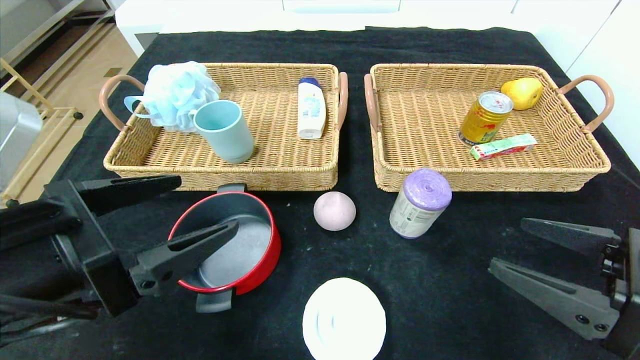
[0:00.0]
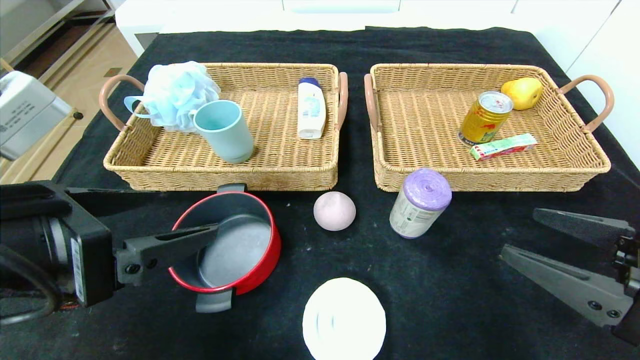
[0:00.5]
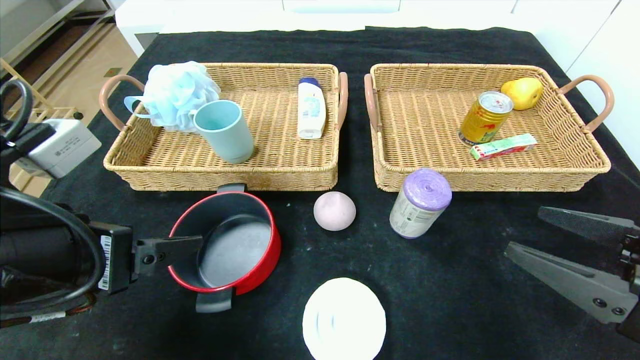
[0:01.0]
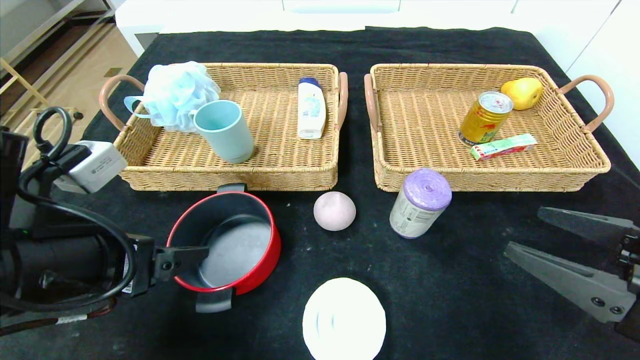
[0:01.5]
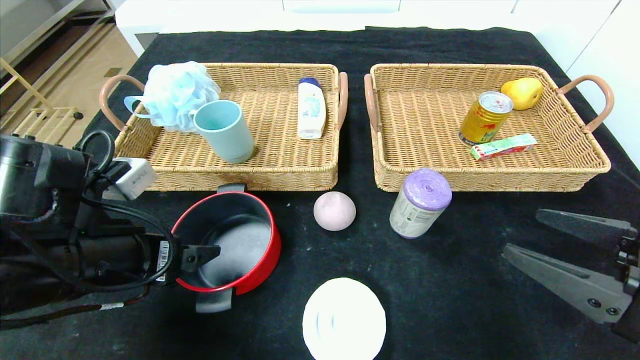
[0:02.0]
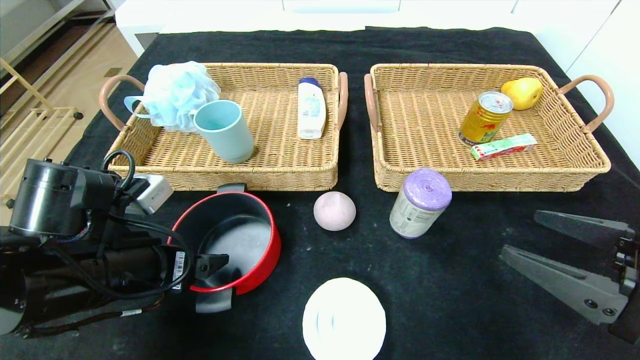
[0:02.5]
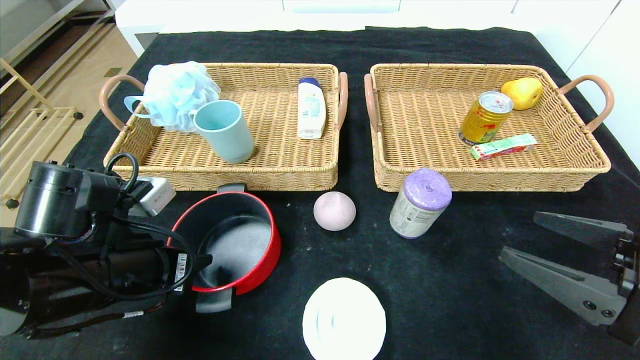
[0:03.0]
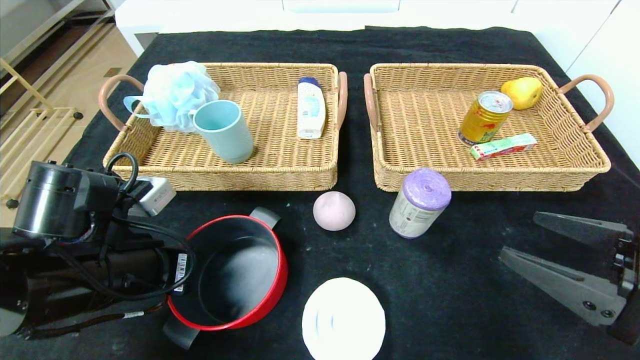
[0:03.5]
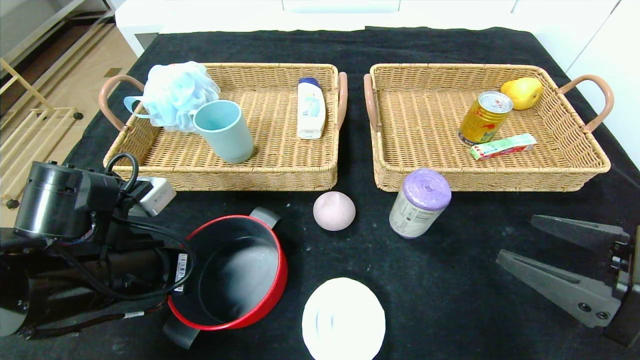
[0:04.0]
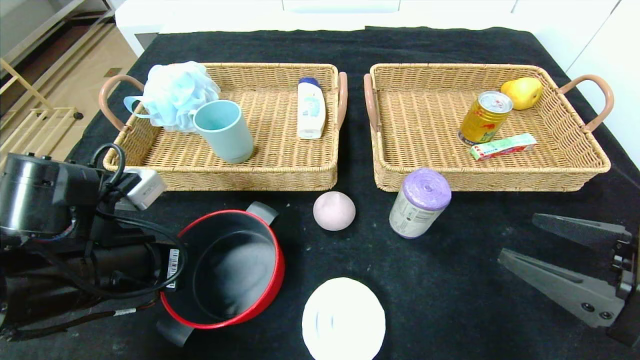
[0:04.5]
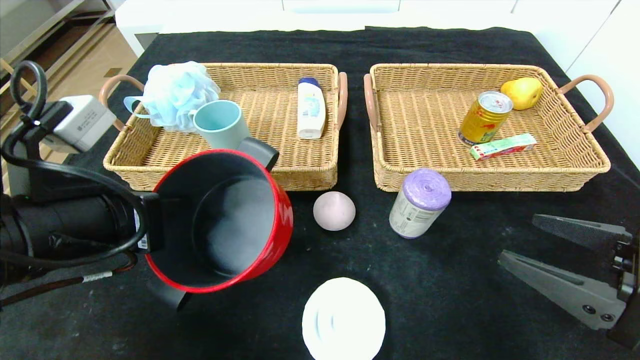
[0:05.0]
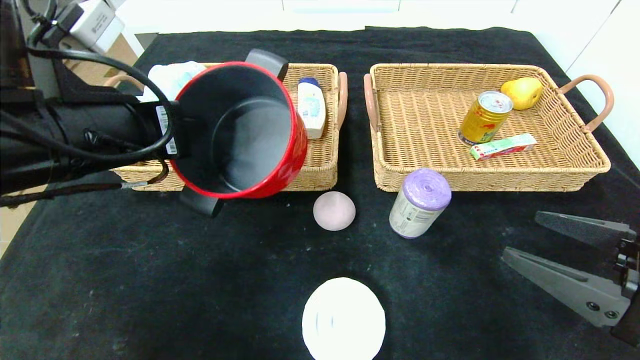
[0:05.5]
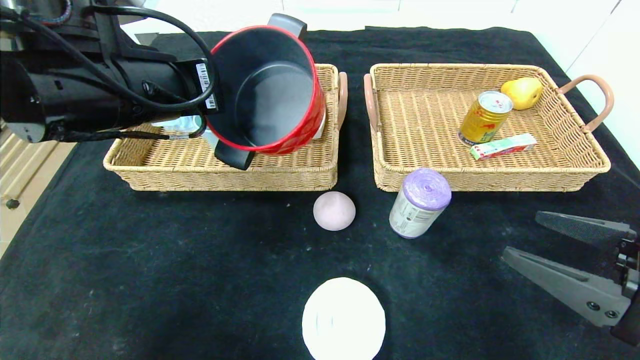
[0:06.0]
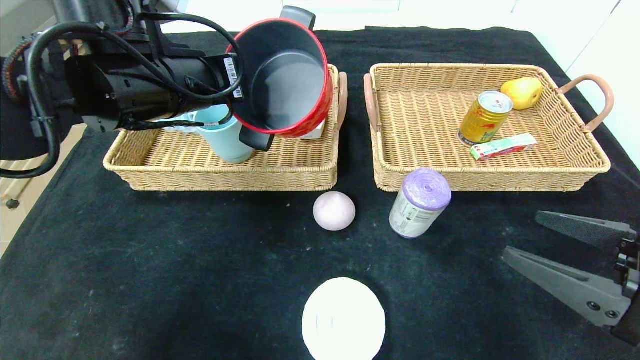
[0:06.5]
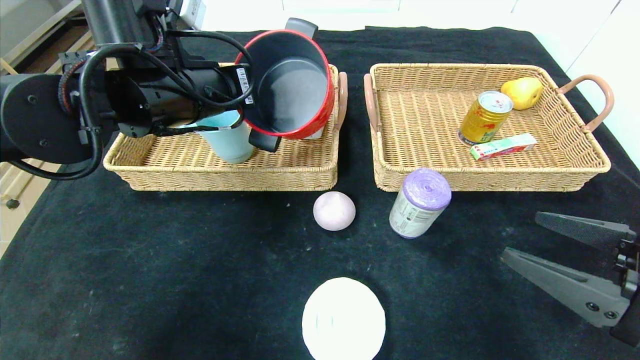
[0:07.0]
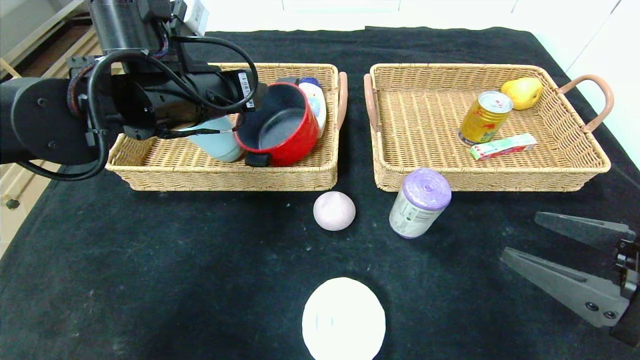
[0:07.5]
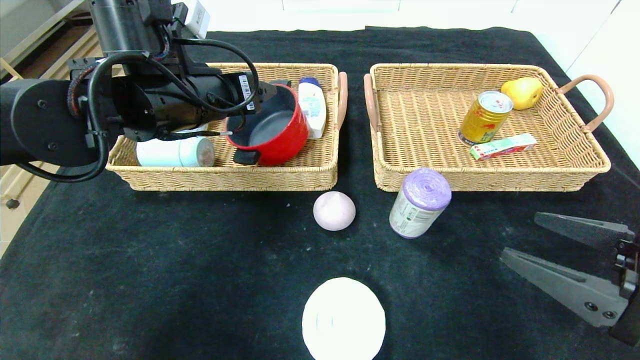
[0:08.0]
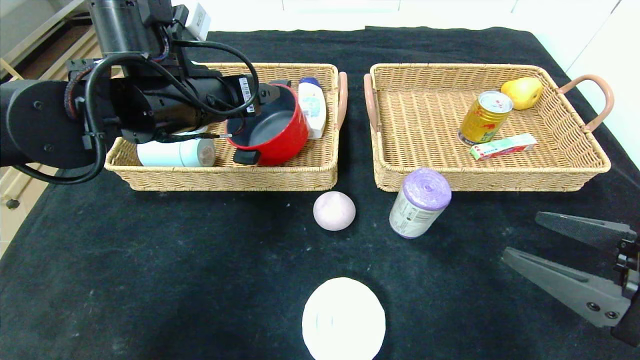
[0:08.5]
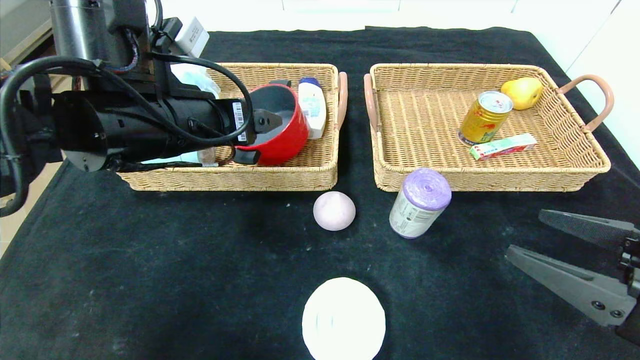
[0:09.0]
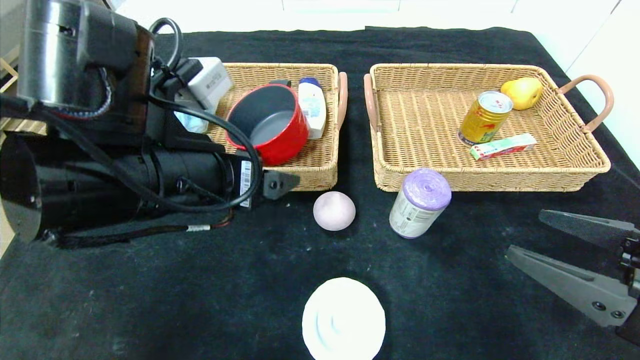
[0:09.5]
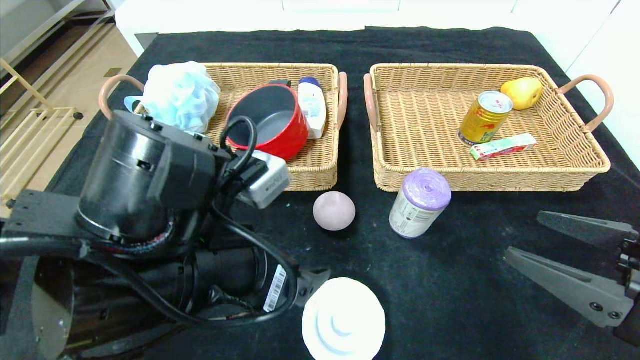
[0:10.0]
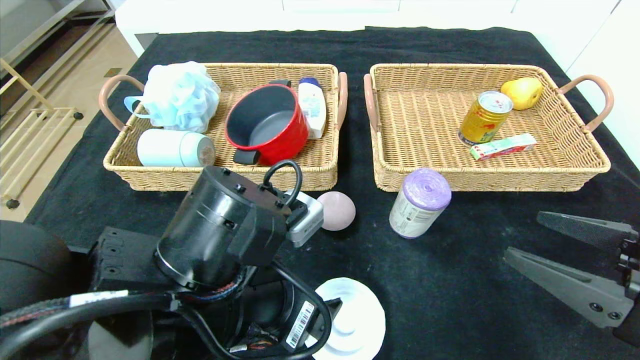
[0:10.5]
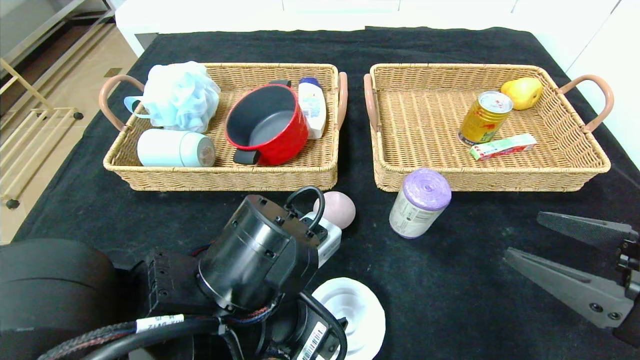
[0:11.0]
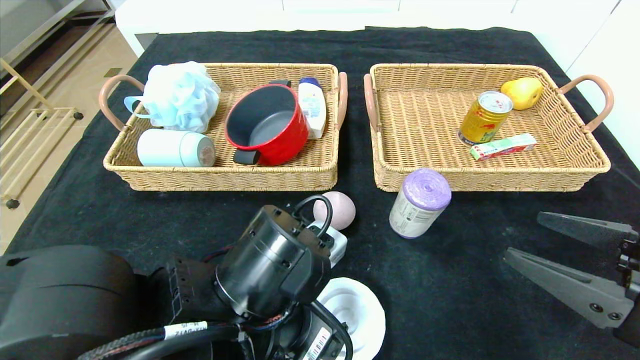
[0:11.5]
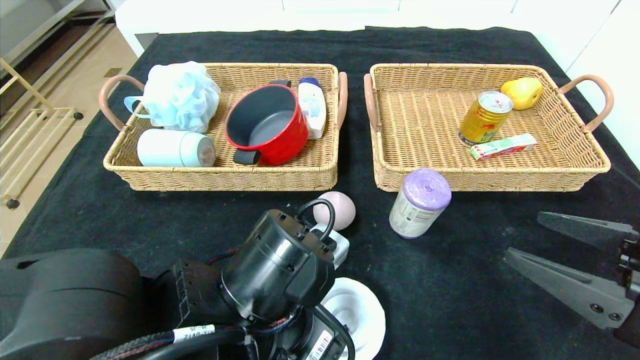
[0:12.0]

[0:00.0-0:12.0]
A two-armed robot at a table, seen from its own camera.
Step, 0:00.0 to 0:07.5: Grasp the red pot and put it in the left basket.
0:00.0 to 0:02.0: The left gripper shifts roughly 5 cm forward.
0:02.0 to 0:04.0: The left gripper closes up.
0:04.0 to 0:06.0: The left gripper is displaced upward and forward by approximately 15 cm.
0:06.0 to 0:08.0: The left gripper travels forward by roughly 5 cm, and opens up.
0:08.0 to 0:10.0: The left gripper travels backward and downward by approximately 20 cm.
0:10.0 to 0:12.0: The left gripper heads downward, covering roughly 5 cm.

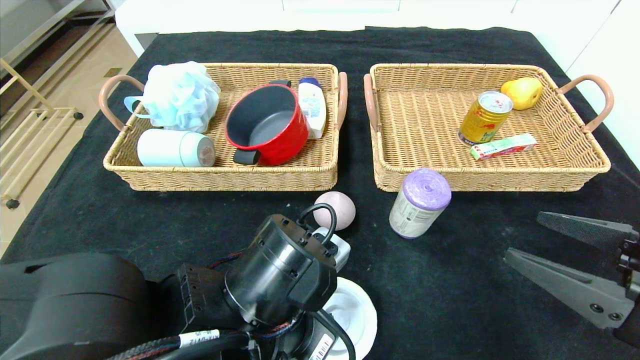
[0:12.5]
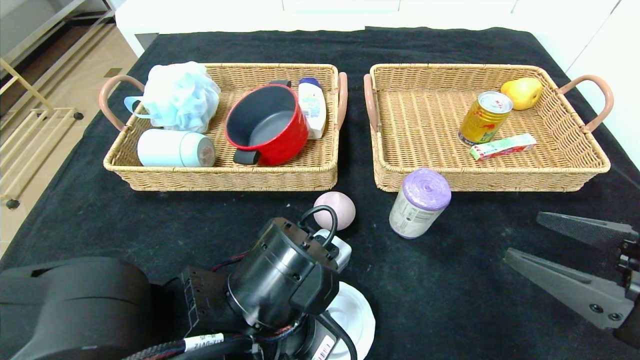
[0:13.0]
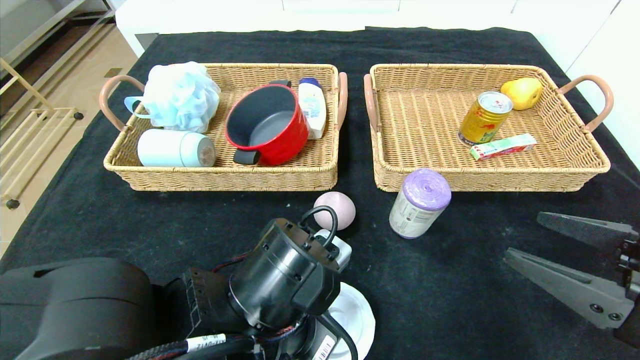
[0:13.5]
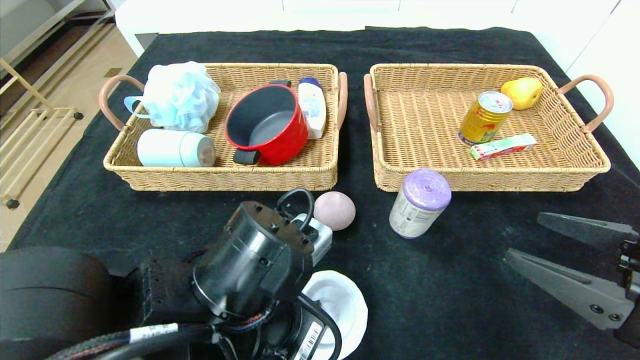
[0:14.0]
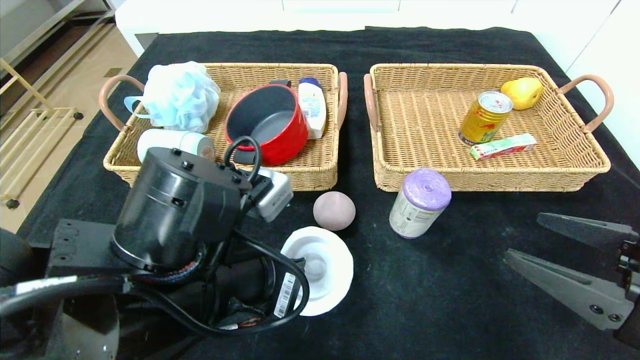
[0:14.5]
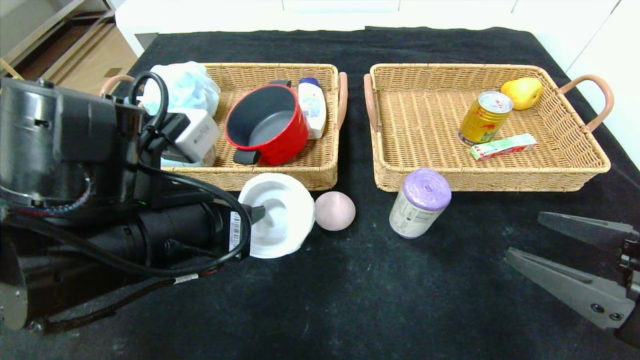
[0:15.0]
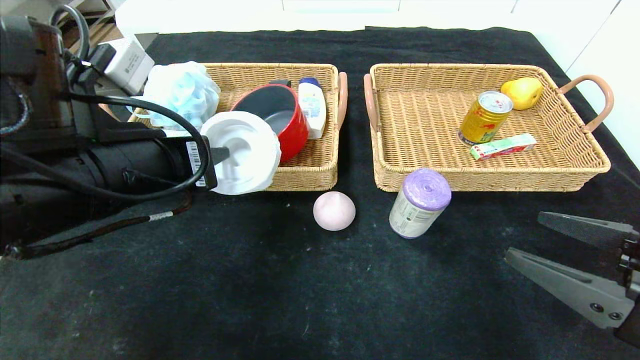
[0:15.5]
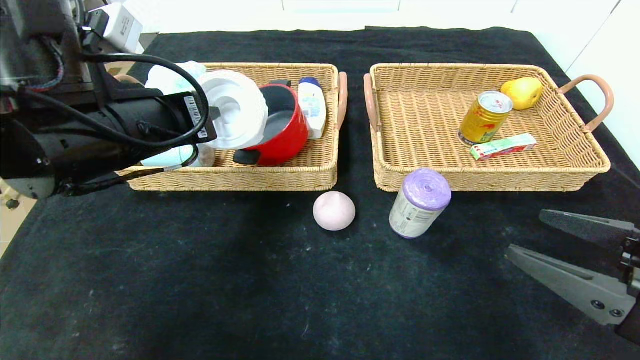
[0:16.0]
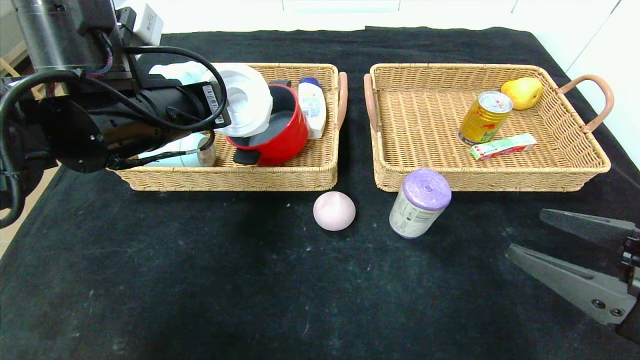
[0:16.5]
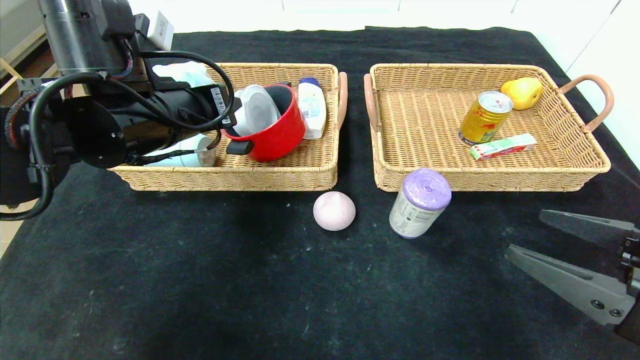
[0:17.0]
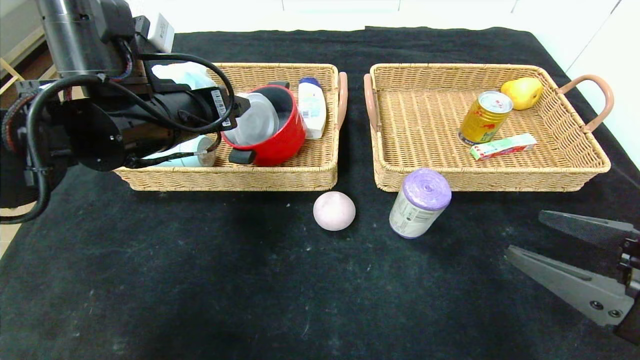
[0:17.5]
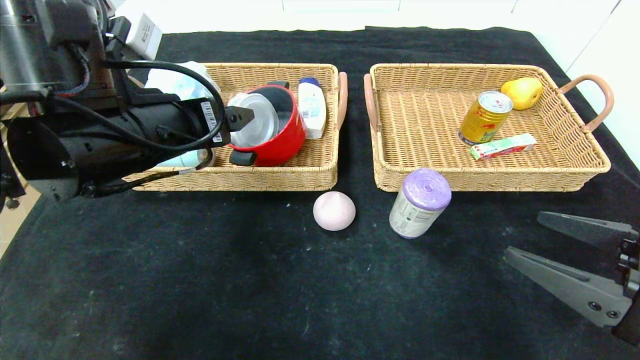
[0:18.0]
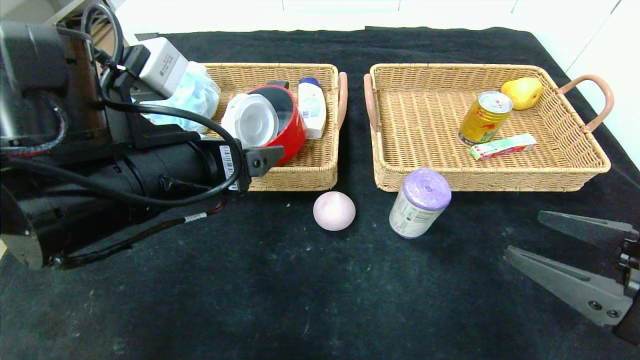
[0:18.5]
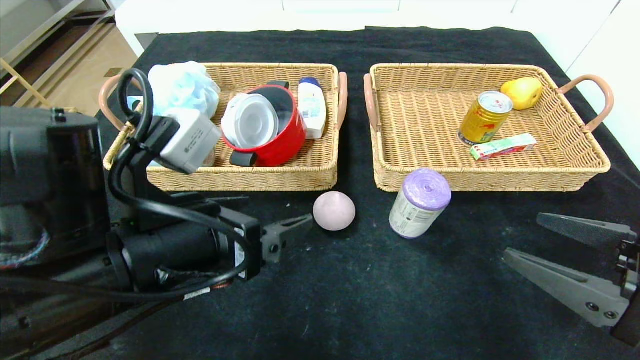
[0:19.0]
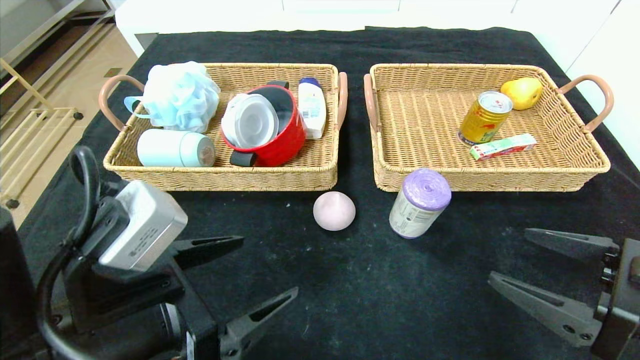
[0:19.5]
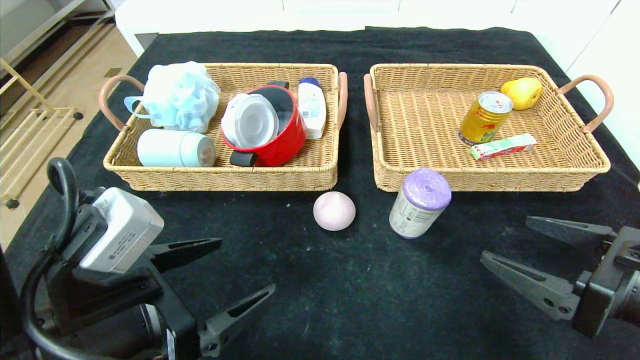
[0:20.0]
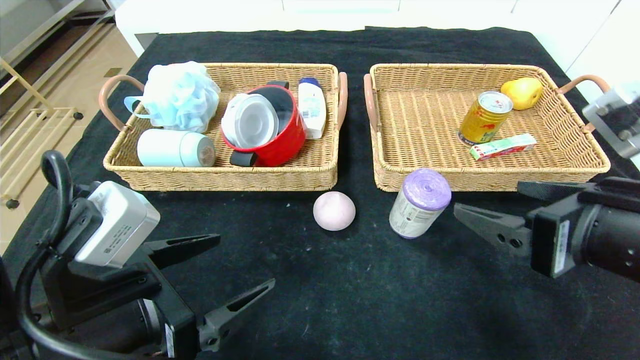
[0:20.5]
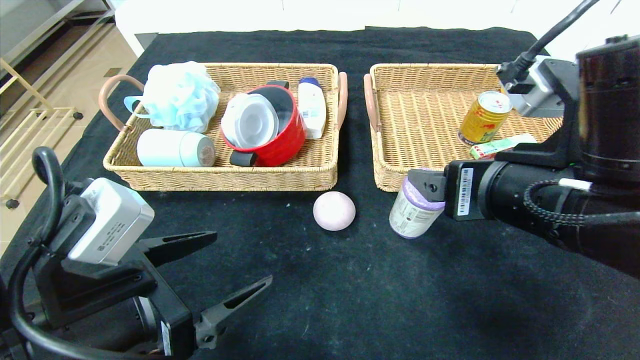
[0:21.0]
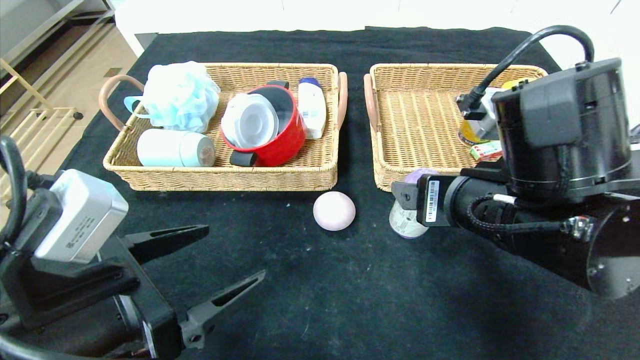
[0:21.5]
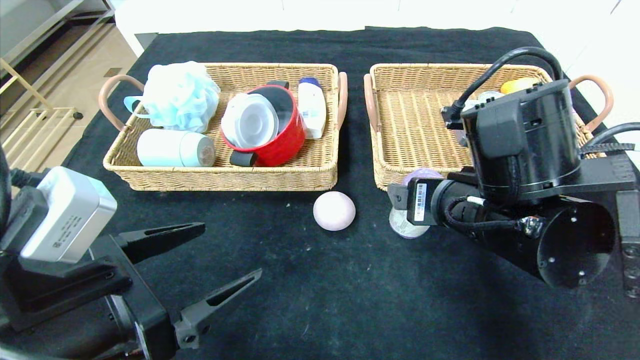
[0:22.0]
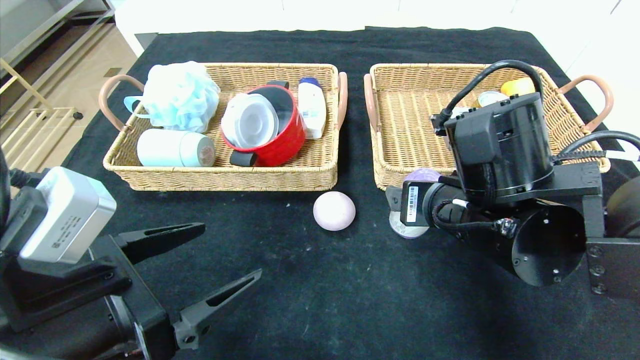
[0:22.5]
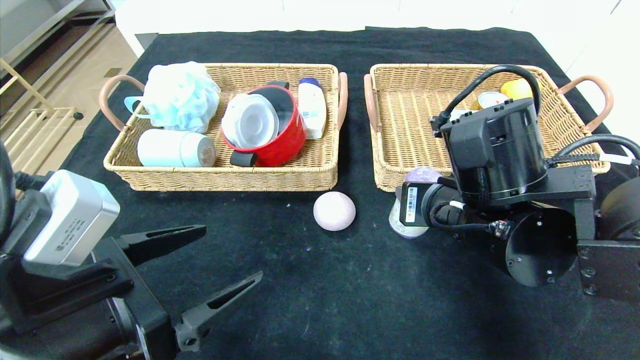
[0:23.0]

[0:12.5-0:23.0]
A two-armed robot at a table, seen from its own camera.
Step, 0:12.5 to 0:17.0: Grasp the tape and put it in the left basket.
0:12.5 to 0:14.5: The left gripper shifts by about 5 cm.
0:14.5 to 0:16.5: The left gripper goes approximately 15 cm forward, upward and to the left.
0:16.5 to 0:19.0: The left gripper shifts some 15 cm backward and downward, and opens.
0:19.0 to 0:21.0: The right gripper shifts approximately 15 cm to the left, upward and forward; the left gripper shifts by some 5 cm.
0:21.0 to 0:23.0: The right gripper heads forward and downward, covering some 5 cm, and closes its fingers.
